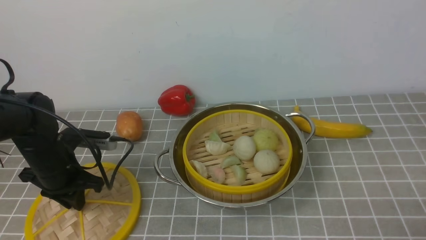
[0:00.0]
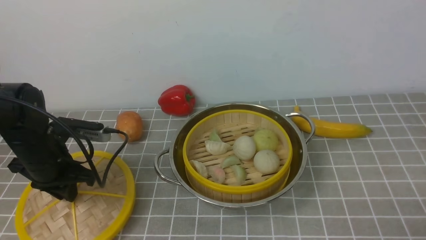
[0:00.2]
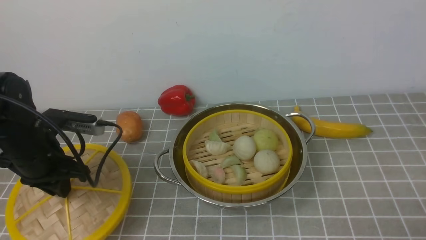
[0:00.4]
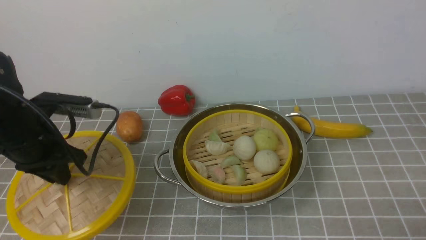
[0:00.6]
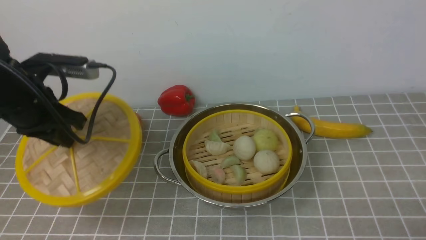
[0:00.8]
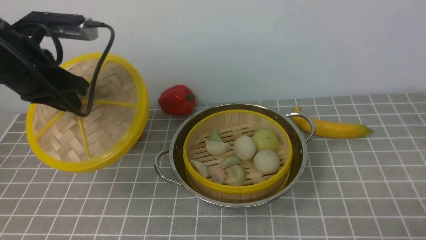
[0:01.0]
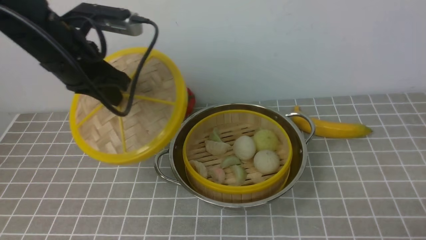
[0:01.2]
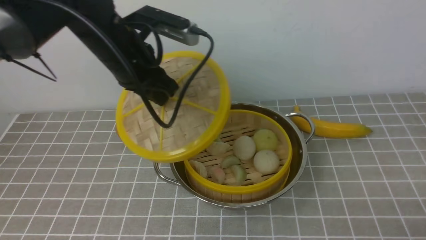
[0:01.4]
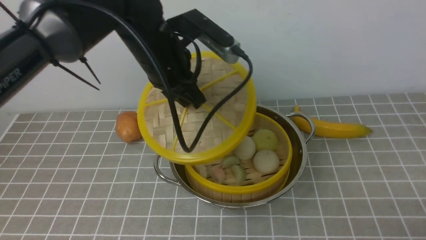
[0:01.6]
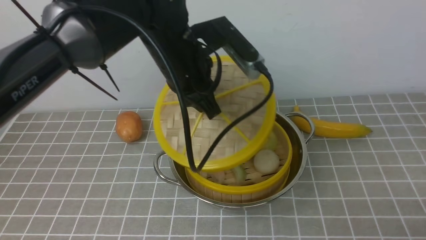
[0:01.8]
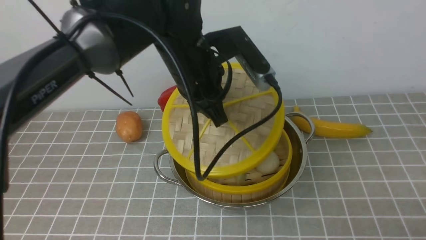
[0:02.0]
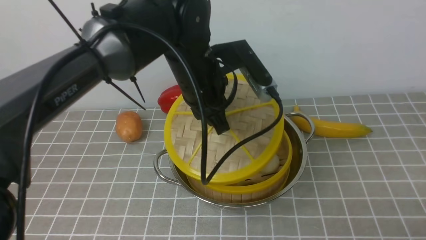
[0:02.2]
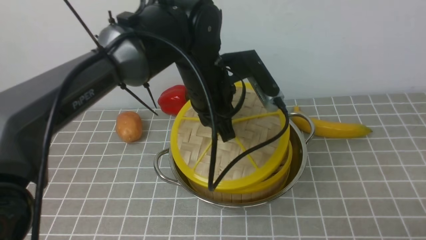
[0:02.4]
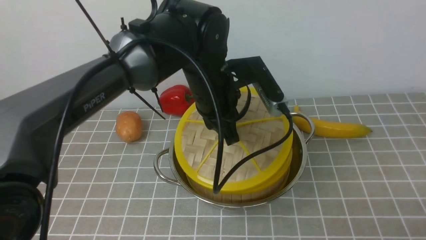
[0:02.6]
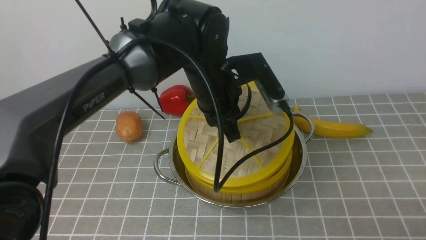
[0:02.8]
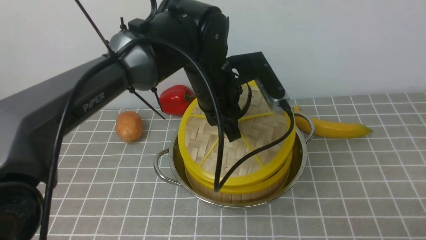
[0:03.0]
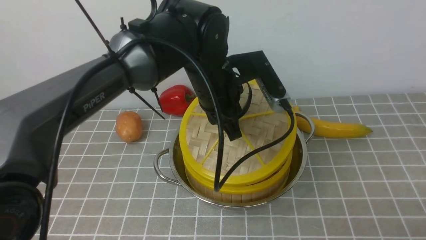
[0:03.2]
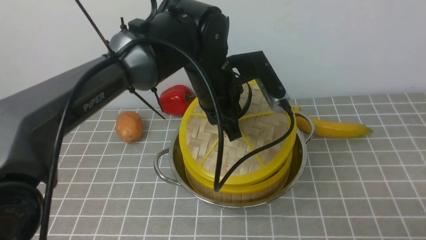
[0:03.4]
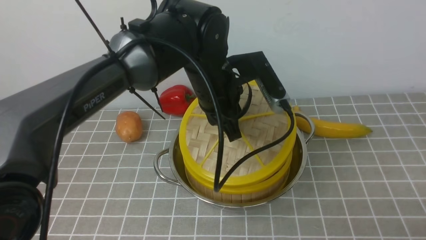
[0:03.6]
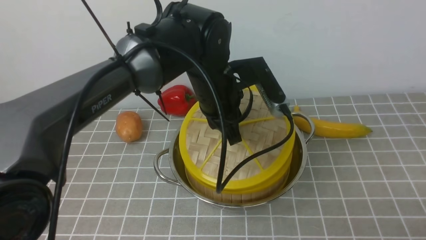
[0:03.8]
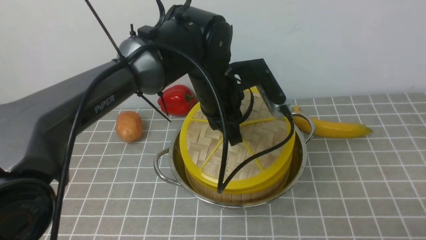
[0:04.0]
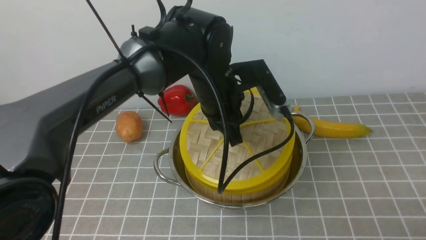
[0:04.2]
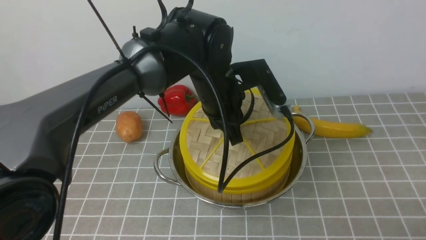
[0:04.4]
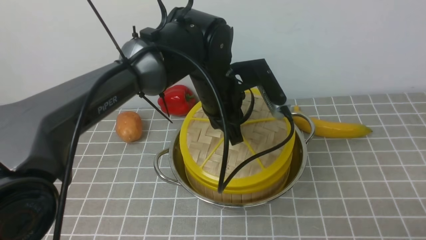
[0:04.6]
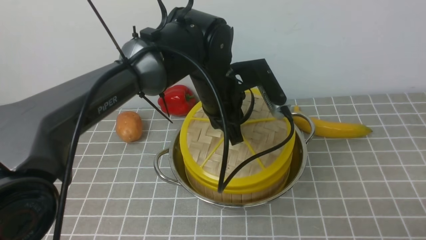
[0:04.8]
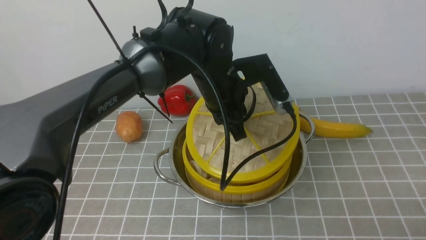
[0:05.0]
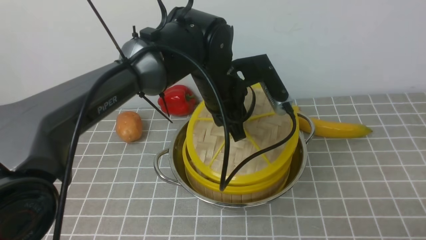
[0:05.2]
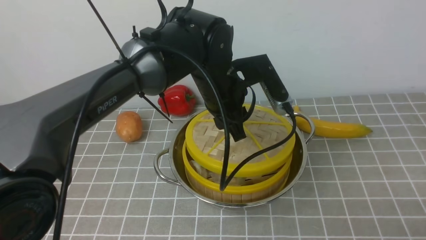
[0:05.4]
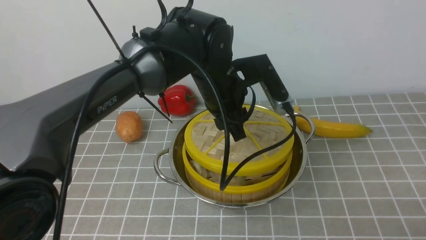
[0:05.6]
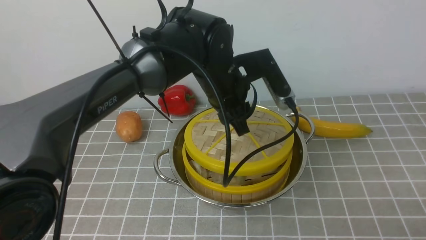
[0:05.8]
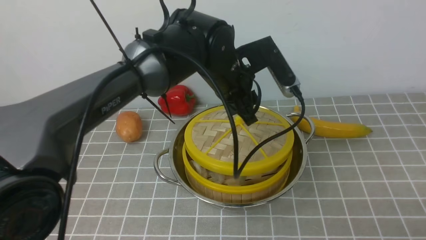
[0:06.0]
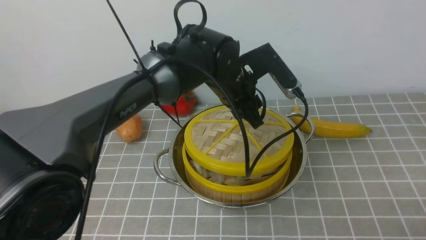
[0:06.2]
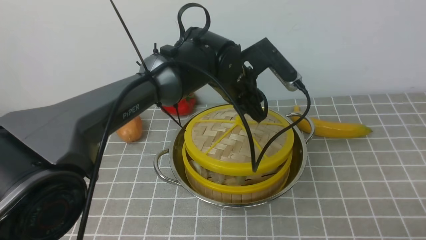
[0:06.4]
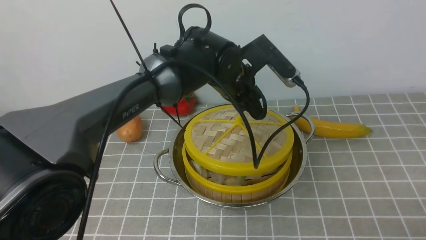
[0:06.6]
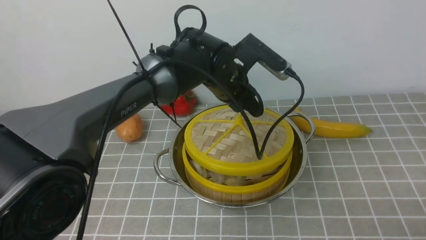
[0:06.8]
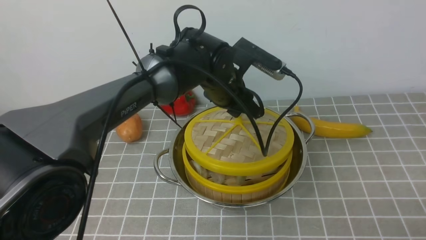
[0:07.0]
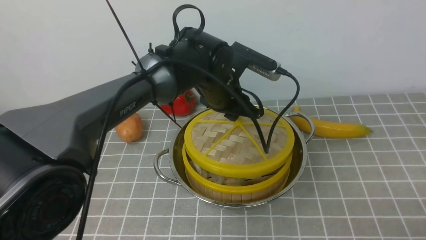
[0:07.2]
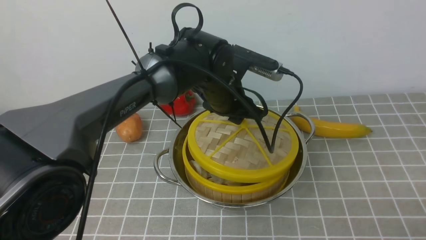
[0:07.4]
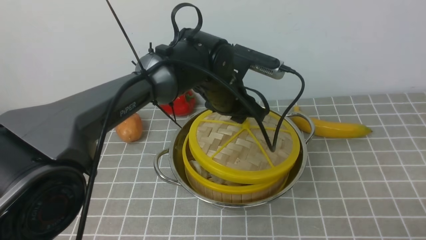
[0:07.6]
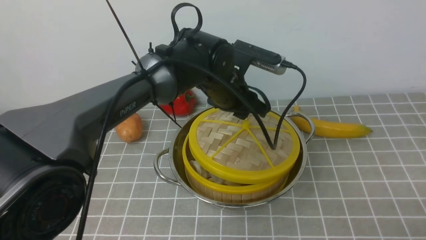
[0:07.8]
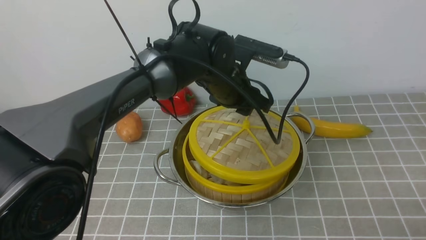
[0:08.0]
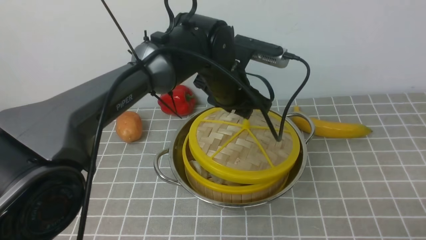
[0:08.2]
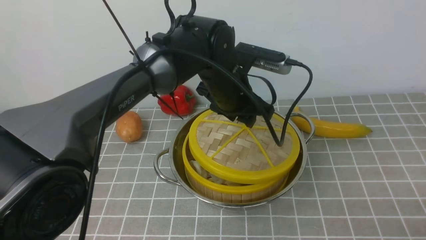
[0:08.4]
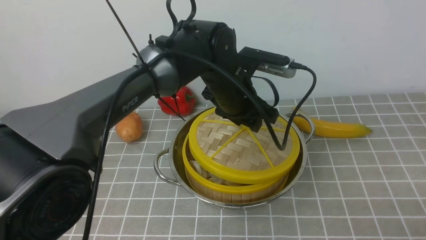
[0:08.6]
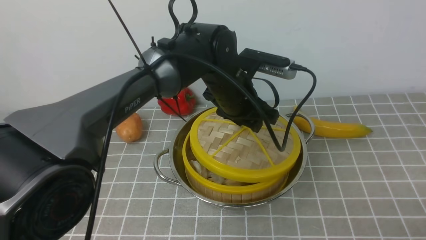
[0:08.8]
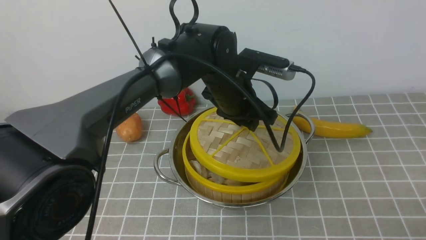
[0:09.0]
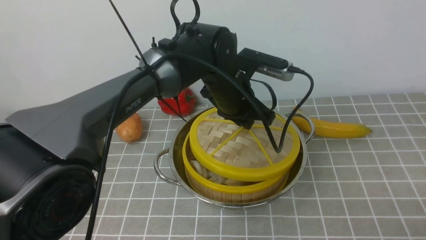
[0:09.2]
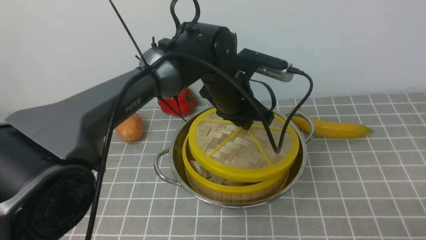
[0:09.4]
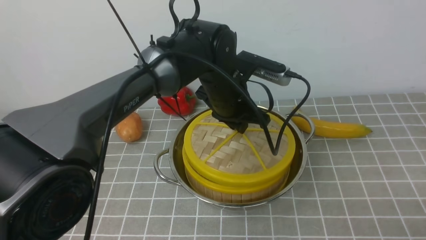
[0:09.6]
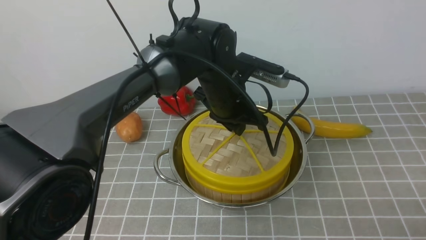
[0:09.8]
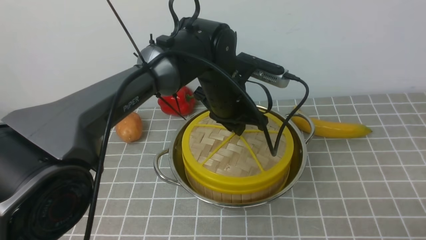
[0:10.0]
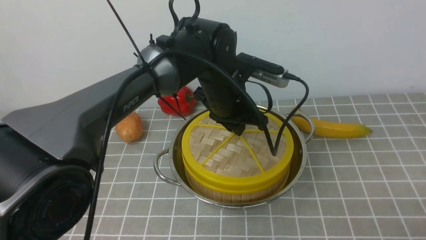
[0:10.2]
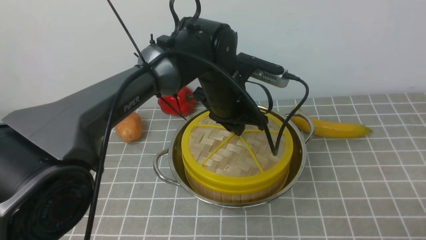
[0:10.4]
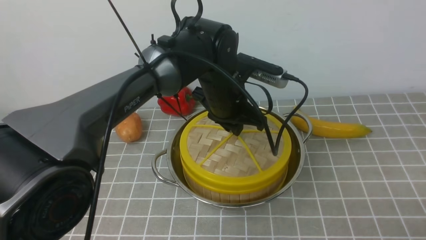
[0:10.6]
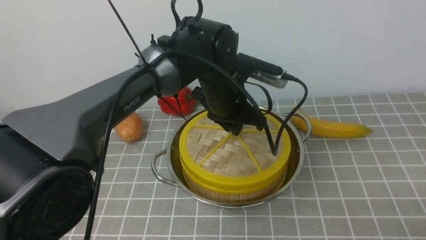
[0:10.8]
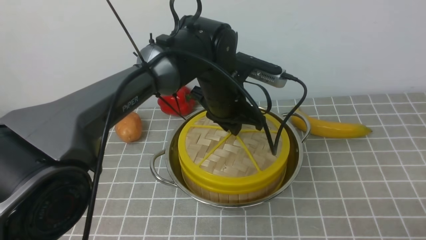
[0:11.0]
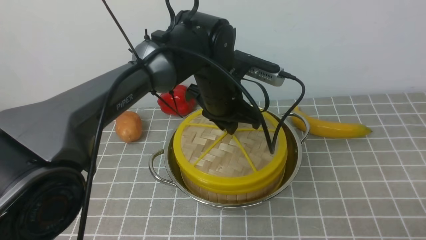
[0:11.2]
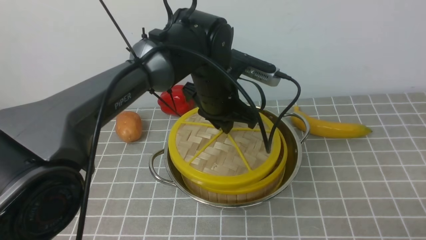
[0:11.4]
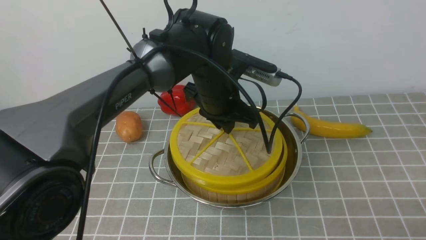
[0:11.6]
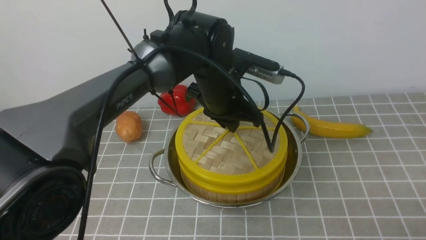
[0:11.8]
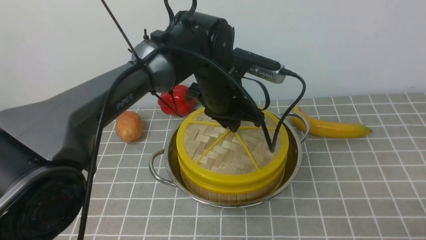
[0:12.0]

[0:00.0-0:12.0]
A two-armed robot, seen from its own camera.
Task of the whole recording: place the steamer in the pot on the grey tablecloth, and put the lid on the steamer.
0:00.0 to 0:01.6: The left gripper travels to the right and upward by about 25 cm.
0:01.6 to 0:03.0: The left gripper heads to the right, covering some 10 cm.
0:03.0 to 0:04.4: The grippers make only small movements.
0:04.4 to 0:06.0: The left gripper opens its fingers.
0:07.6 to 0:09.0: The grippers make only small movements.
0:09.0 to 0:10.4: The left gripper closes its fingers.
0:10.4 to 0:12.0: The grippers make only small movements.

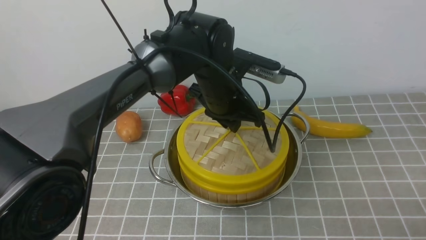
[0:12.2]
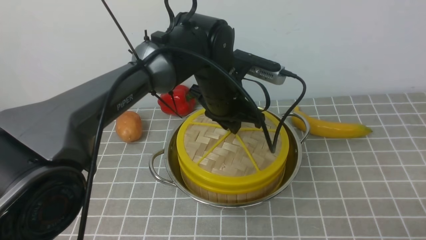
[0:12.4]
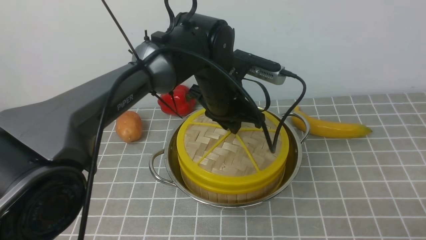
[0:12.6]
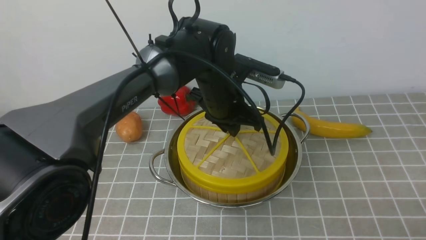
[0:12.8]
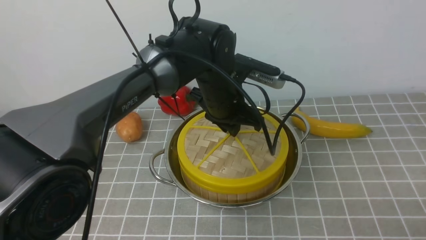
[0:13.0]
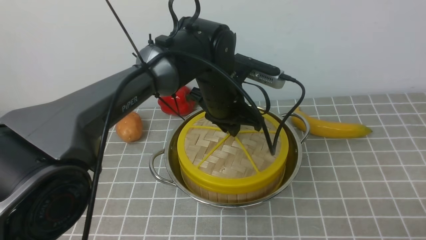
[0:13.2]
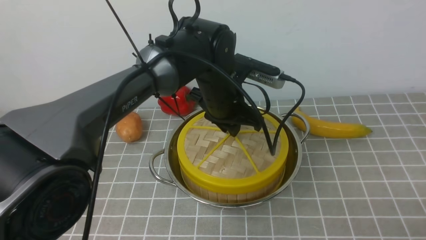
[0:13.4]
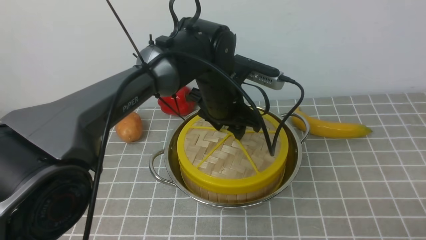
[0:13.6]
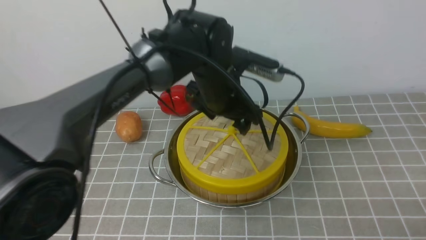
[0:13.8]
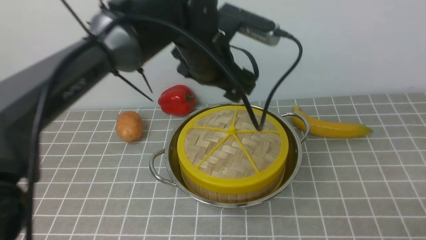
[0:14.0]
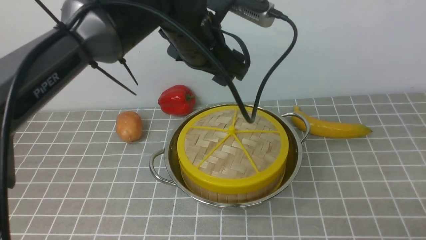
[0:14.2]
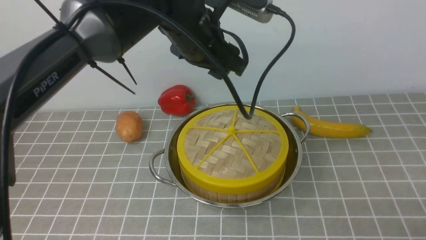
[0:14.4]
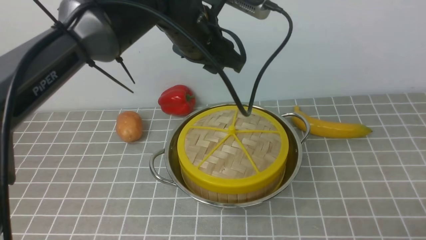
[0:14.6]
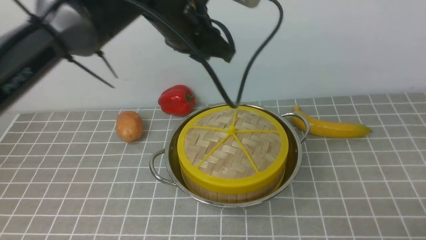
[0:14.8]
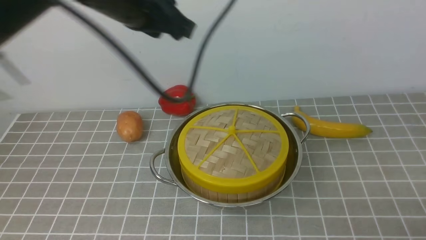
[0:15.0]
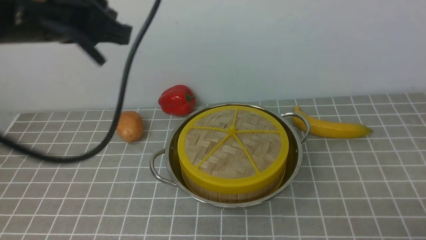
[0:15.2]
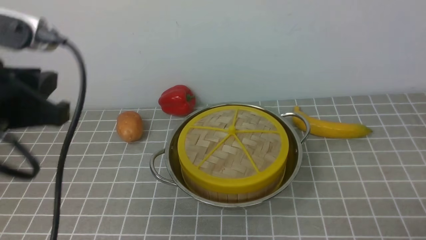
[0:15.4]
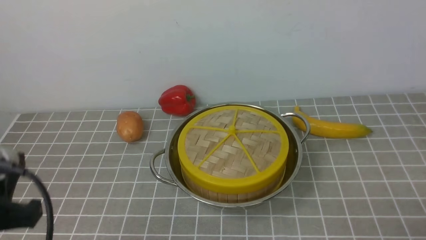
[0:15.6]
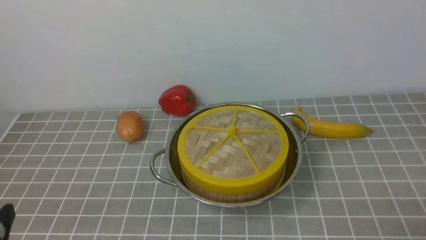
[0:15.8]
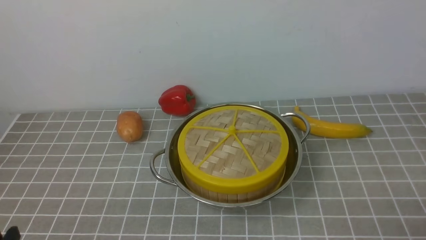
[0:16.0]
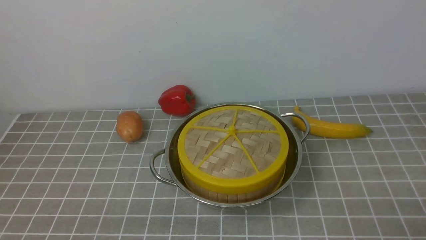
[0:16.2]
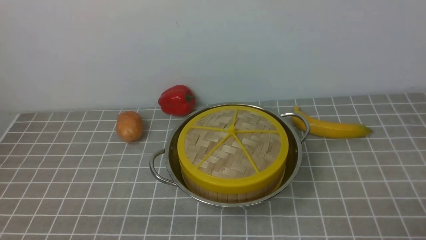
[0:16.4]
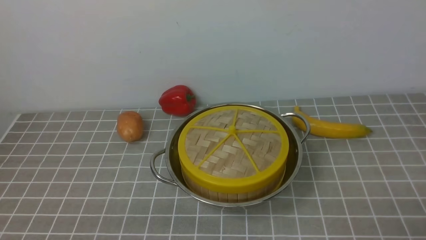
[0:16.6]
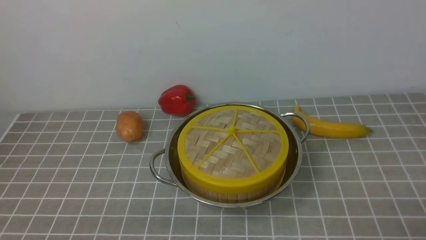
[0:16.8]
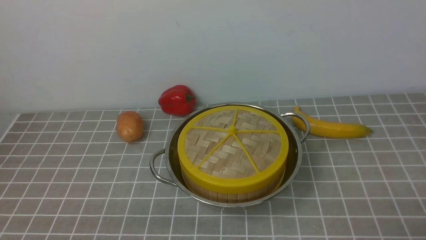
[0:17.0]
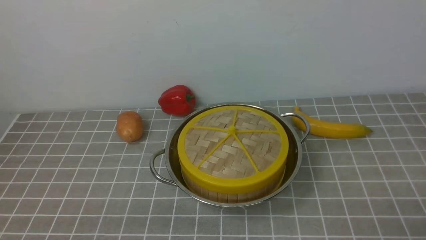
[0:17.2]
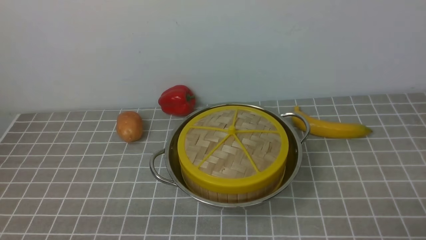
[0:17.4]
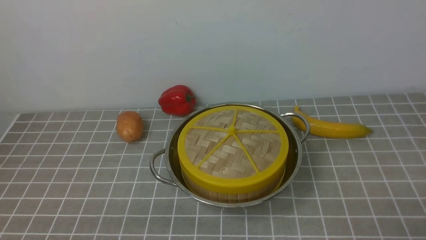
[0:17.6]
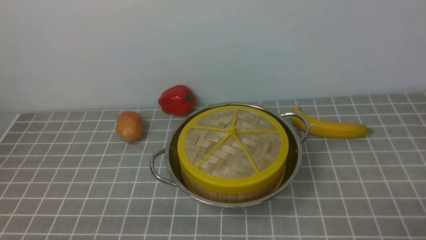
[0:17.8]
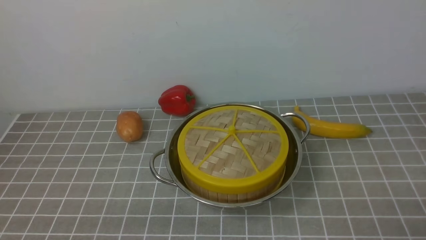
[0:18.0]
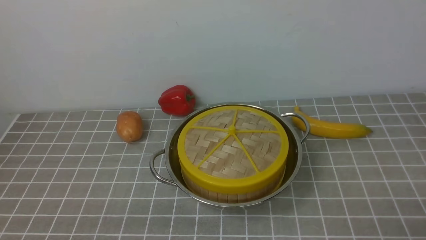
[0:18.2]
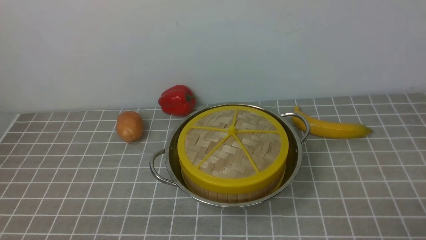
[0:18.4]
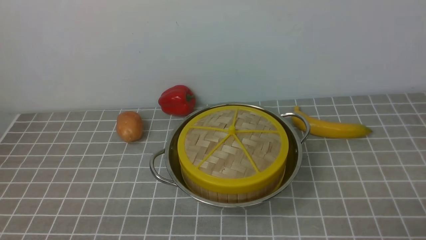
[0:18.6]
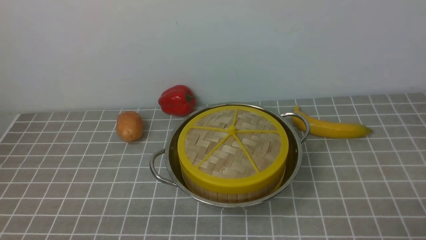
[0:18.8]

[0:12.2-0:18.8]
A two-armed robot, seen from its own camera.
Task of the whole recording: place the steamer in the pot on the grey tablecloth, and put the lid on the steamer.
0:12.2 to 0:13.8: The left gripper opens up.
0:13.8 to 0:15.4: The left gripper is displaced to the left, backward and upward by some 30 cm, and closes.
0:15.4 to 0:17.2: The left gripper travels downward and backward by roughly 25 cm.
0:17.2 to 0:18.8: Both grippers stay about where they are.
